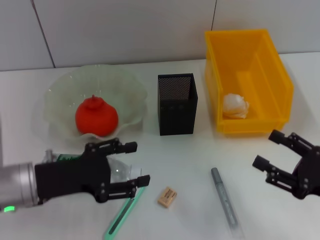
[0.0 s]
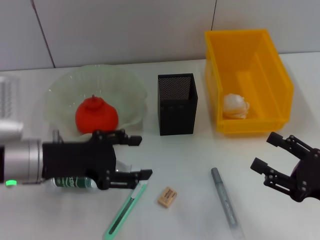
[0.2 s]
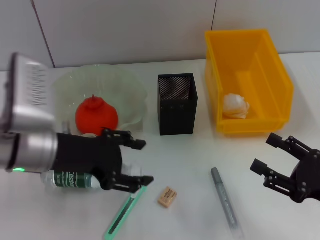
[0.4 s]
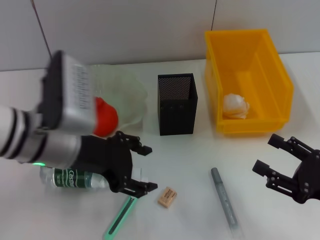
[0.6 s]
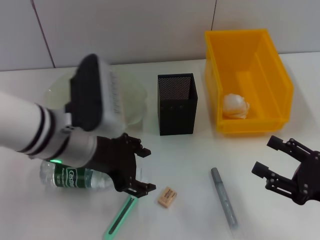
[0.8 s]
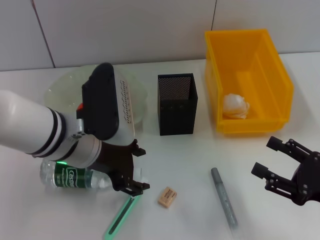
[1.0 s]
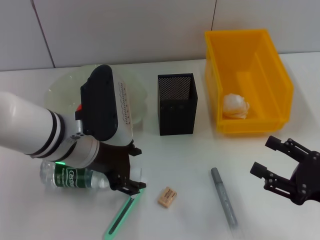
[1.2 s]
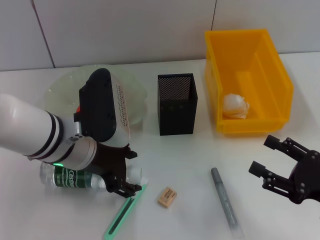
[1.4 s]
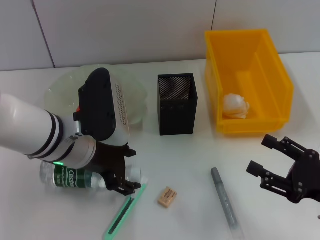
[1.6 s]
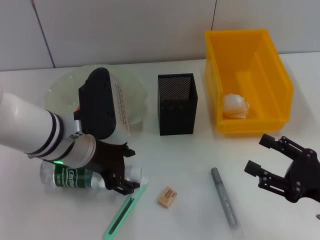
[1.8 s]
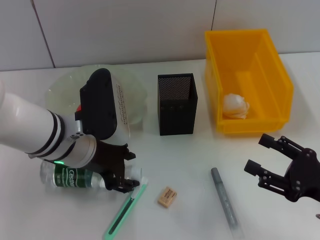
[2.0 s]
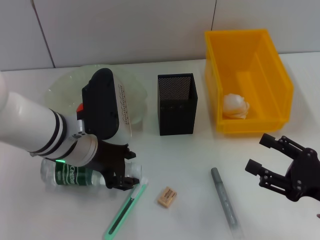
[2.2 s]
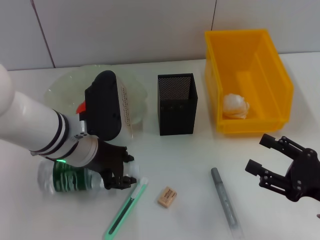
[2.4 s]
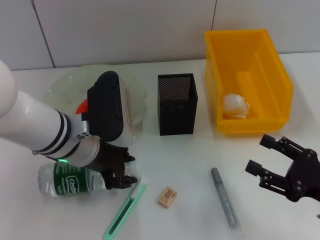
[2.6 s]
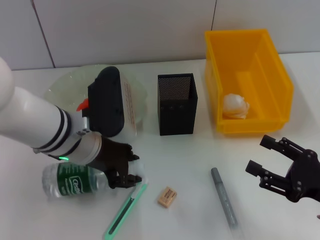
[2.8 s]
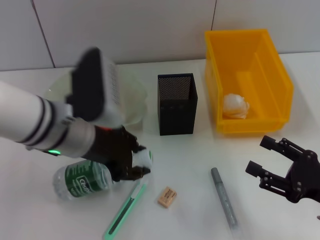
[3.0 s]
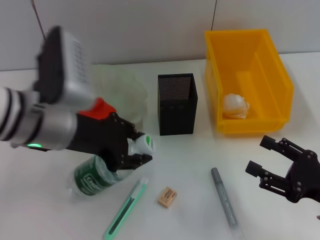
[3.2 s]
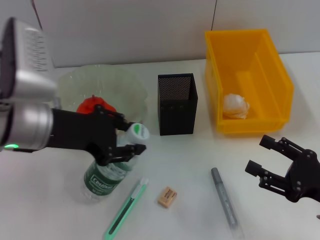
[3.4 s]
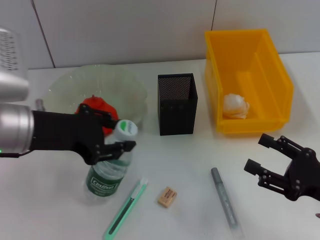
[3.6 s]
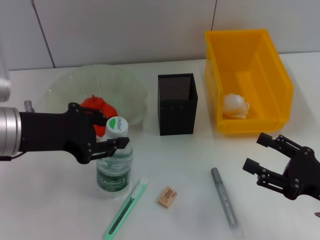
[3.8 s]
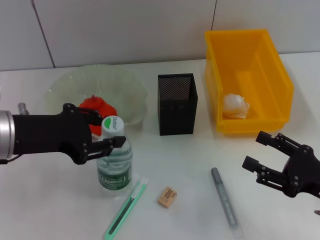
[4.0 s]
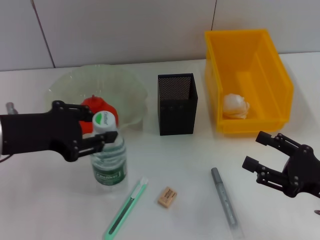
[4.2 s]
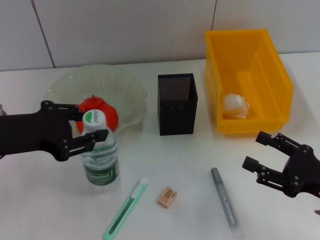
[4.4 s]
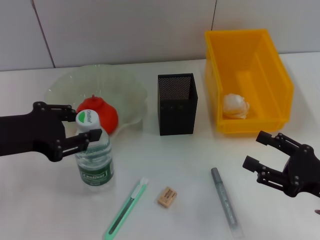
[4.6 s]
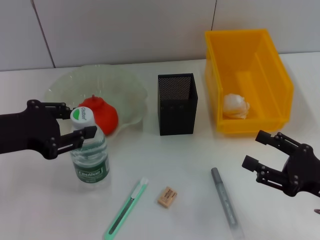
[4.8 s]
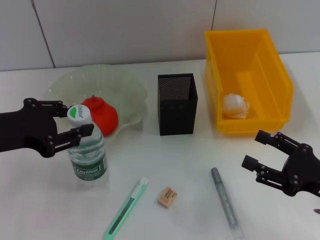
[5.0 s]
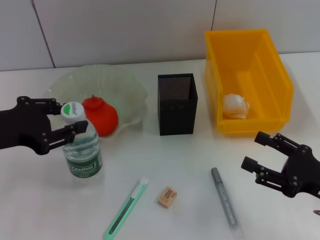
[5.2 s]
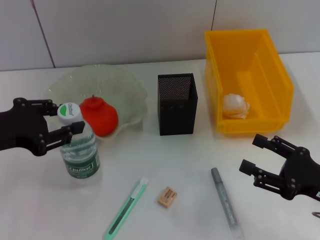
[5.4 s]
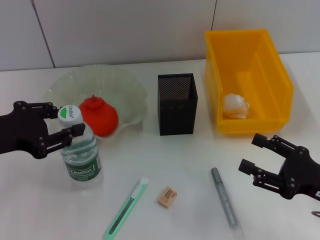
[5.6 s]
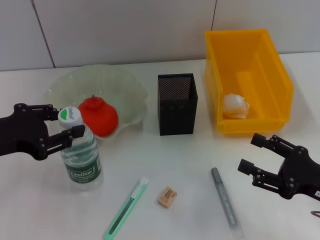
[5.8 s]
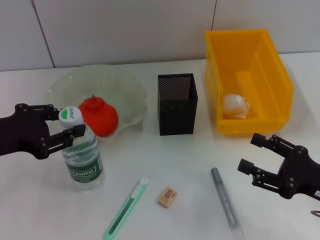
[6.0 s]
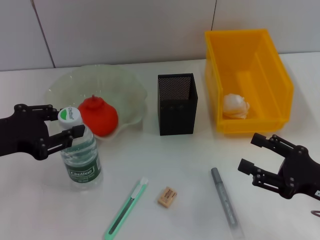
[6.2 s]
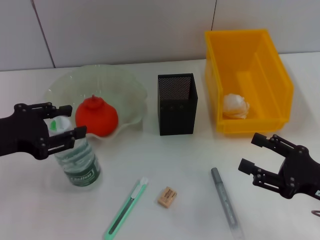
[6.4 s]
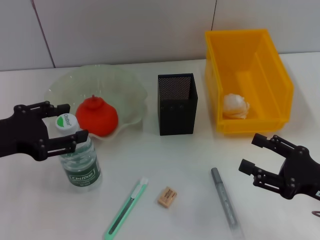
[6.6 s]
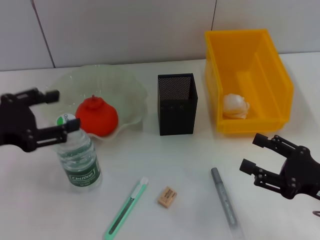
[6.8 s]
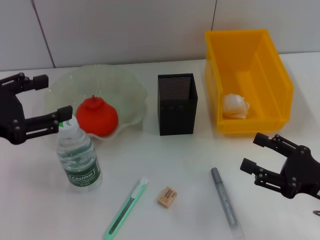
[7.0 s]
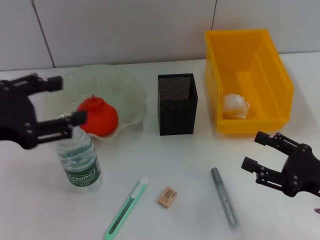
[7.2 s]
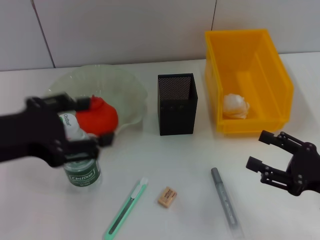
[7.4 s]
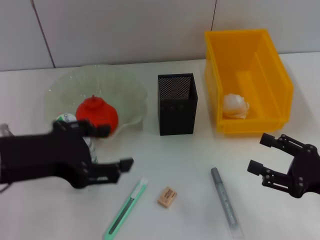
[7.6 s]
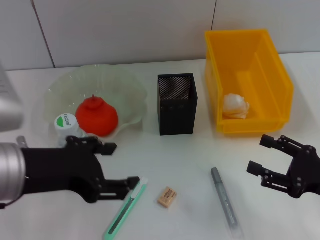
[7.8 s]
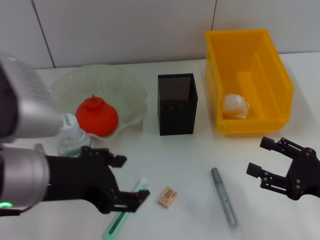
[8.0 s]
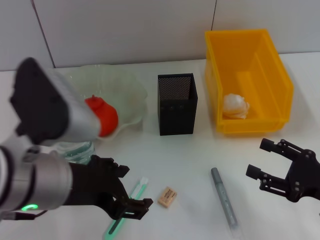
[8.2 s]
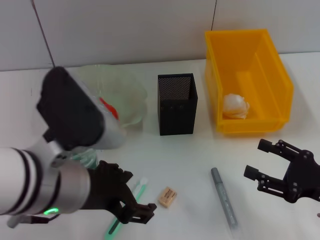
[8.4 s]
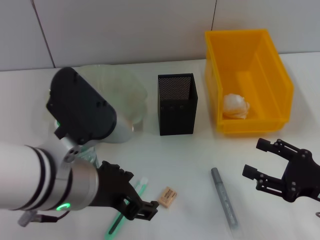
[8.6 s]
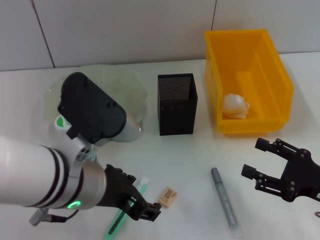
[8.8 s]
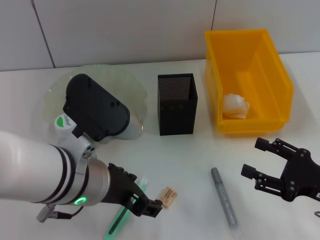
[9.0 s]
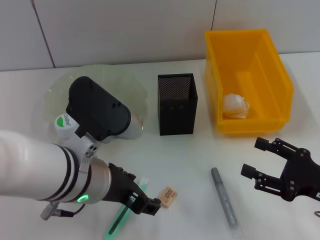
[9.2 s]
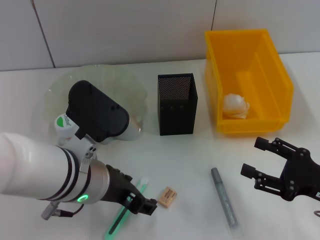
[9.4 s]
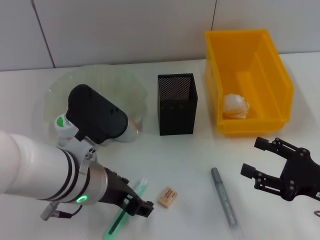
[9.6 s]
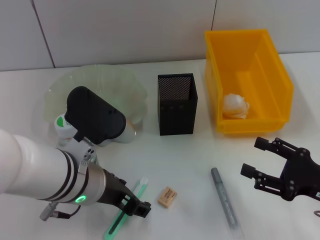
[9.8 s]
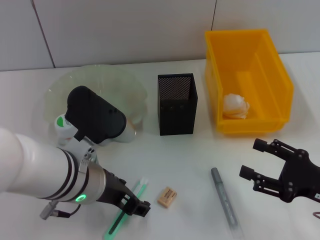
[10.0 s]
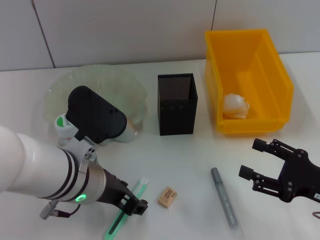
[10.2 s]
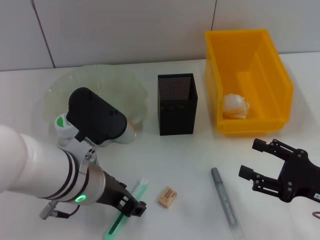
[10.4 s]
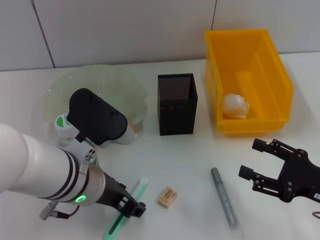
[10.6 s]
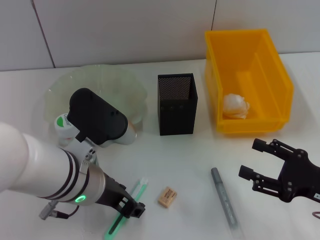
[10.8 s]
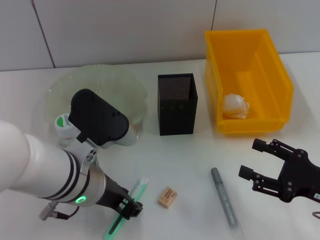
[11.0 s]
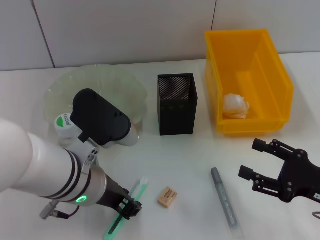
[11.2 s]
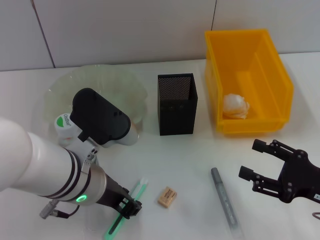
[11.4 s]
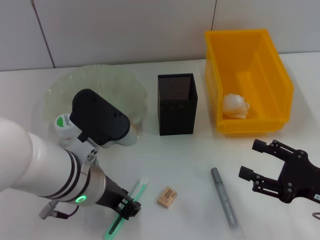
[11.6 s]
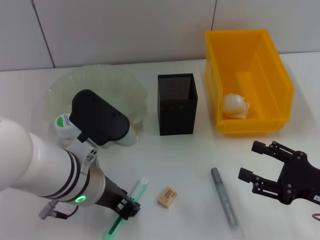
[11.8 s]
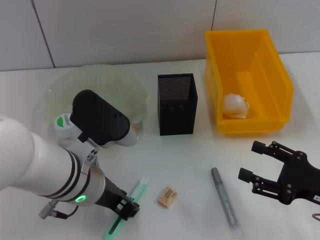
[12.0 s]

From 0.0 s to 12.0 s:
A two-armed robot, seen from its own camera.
Step, from 0.0 s to 2.2 s: Grab the water bottle with the left hand.
Step, from 2.6 s to 6.2 s: Place the water bottle on the table with the left hand.
From 0.0 s to 1.6 s: The left gripper heads to the right, covering roughly 10 cm.
From 1.6 s to 3.0 s: The left gripper closes up.
From 3.0 s to 4.4 s: The left gripper moves to the left, about 10 cm.
From 4.4 s to 6.0 s: There are only small adjustments of the grippers.
From 6.0 s to 7.6 s: The left gripper shifts some 10 cm to the right and backward, and opens up.
From 7.6 s to 9.0 s: The left gripper travels to the right by roughly 10 cm.
From 9.0 s to 10.4 s: The grippers move only a little.
From 10.4 s to 12.0 s: The left gripper closes its fingers.

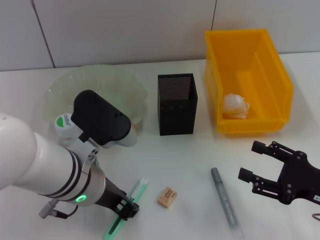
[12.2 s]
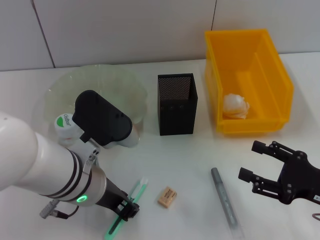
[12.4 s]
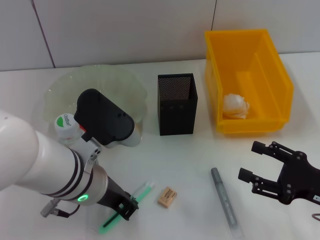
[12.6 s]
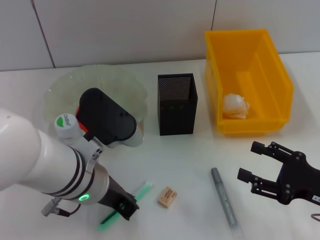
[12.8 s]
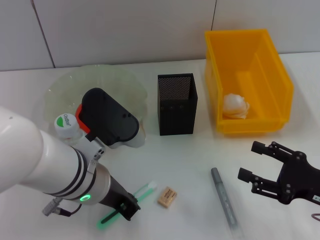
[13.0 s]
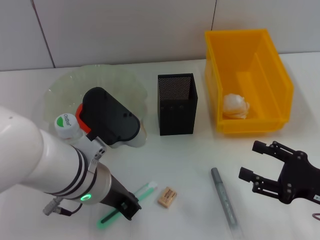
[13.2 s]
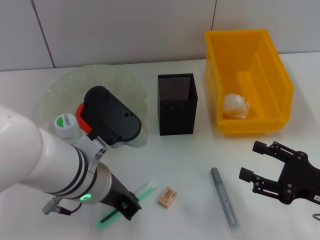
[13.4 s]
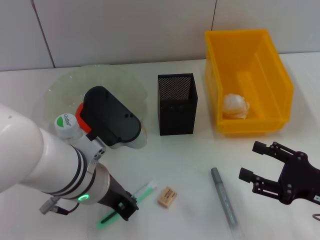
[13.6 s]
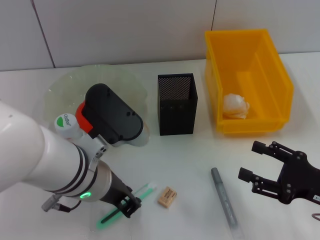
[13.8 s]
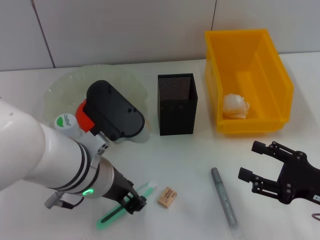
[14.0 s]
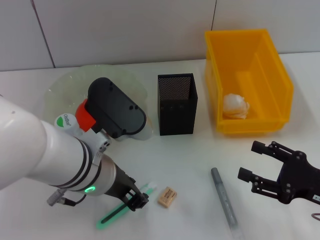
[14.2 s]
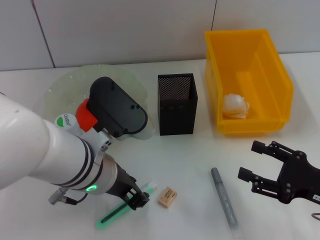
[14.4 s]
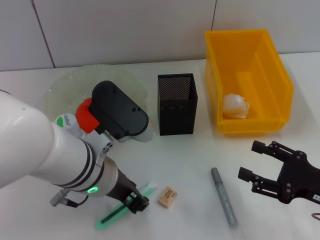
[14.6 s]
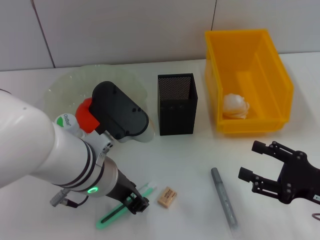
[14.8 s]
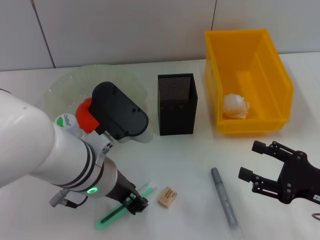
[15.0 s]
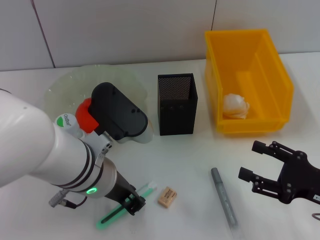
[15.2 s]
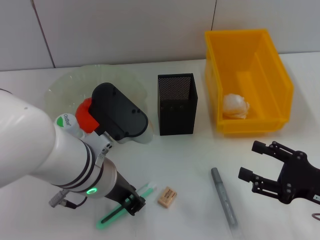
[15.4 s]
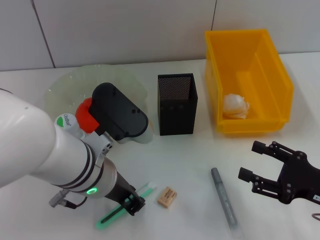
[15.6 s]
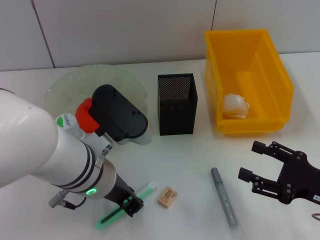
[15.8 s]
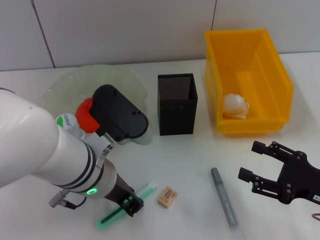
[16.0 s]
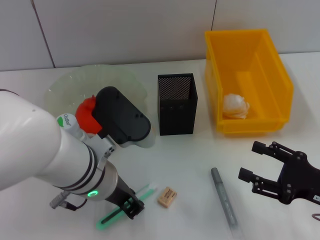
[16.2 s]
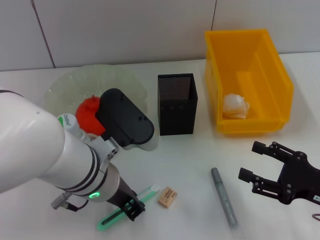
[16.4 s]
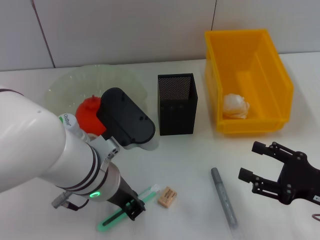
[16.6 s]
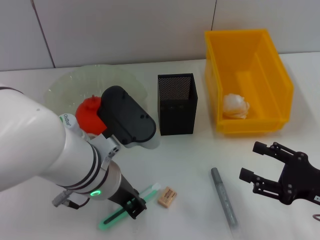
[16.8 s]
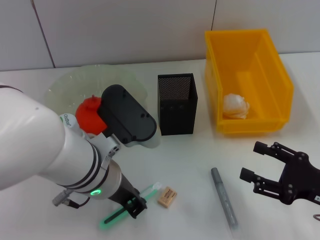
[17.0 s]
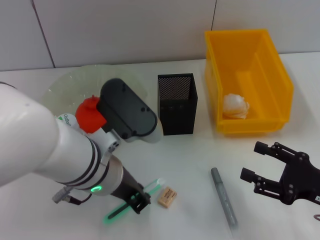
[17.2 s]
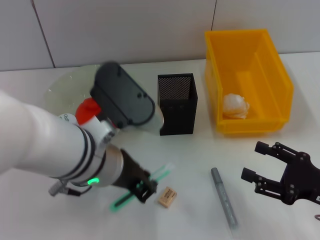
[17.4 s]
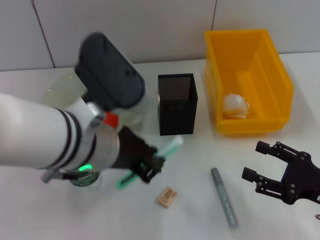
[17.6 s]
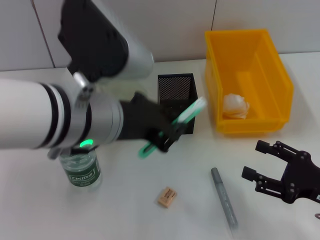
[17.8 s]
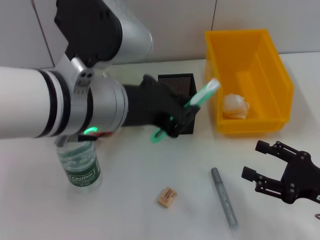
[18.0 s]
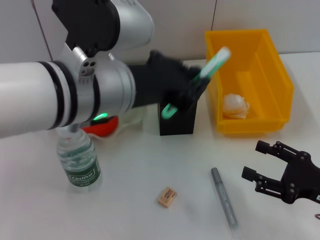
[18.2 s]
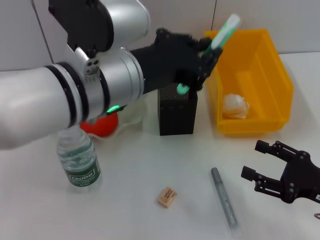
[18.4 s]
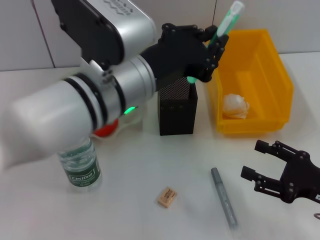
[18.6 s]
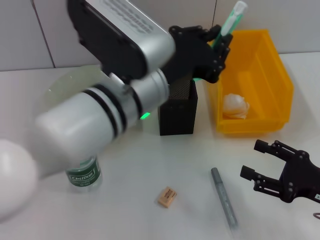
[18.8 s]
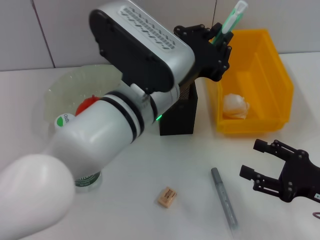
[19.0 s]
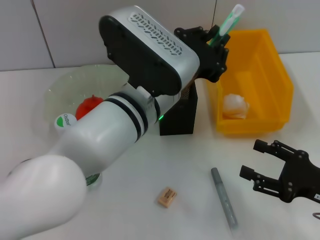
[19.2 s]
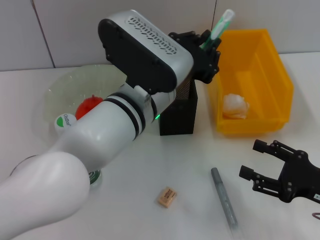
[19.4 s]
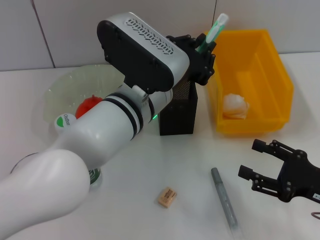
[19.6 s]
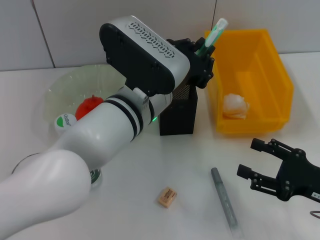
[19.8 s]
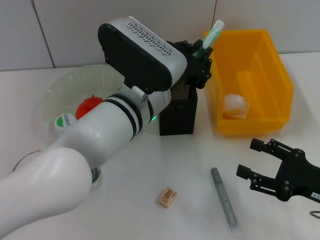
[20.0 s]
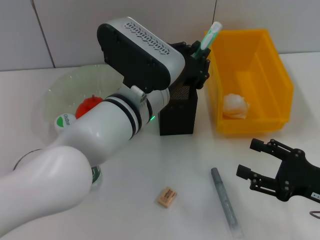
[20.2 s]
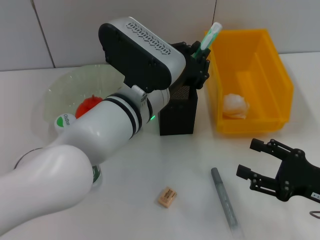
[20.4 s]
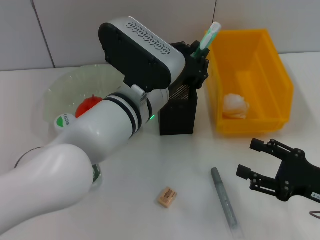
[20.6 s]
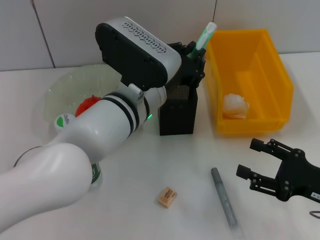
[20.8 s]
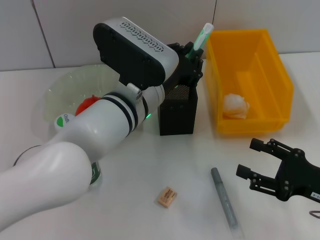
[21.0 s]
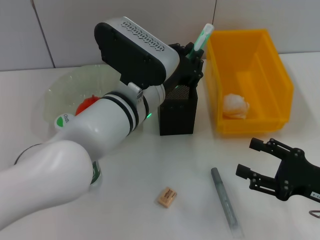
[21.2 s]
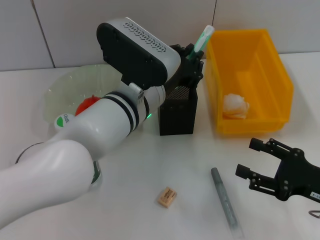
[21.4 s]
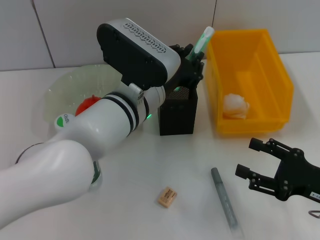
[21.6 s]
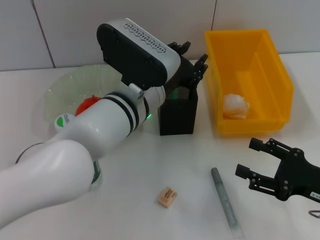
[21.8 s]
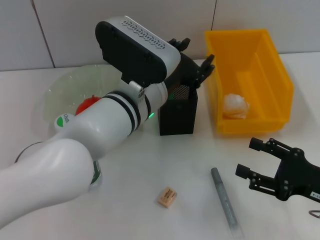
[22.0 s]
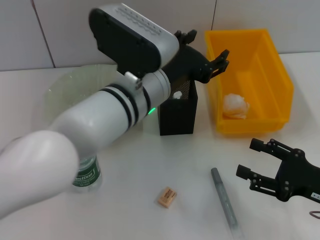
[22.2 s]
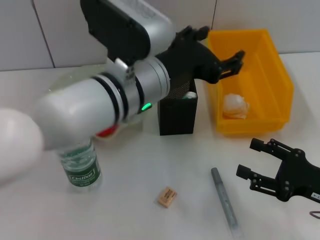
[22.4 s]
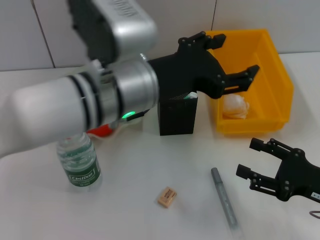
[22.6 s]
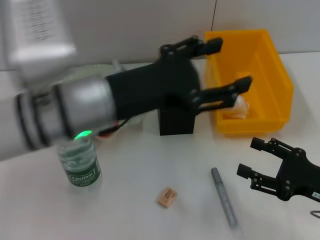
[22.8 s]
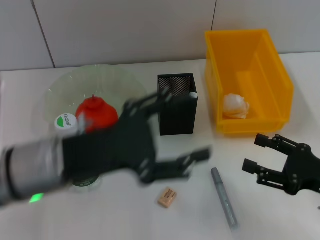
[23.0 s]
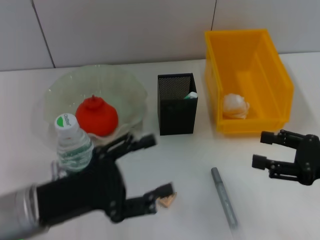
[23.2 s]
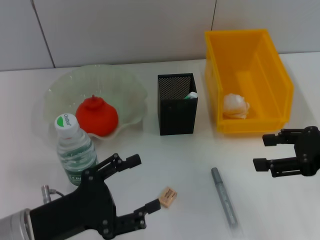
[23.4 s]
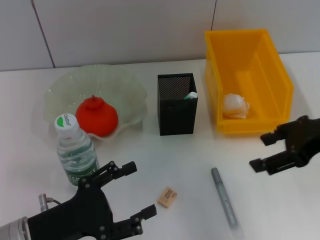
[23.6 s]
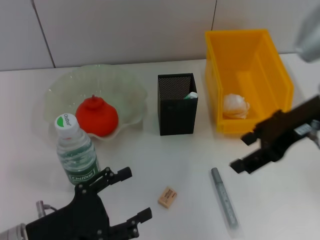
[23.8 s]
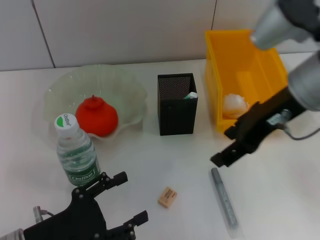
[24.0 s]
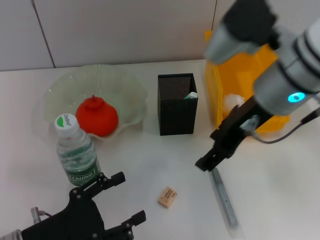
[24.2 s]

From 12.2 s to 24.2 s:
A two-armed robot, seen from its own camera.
Step, from 12.2 s to 15.6 s: Grab the blue utility knife with the left hand.
Step, from 15.8 s to 21.6 s: Place the blue utility knife into the pen holder with the left hand.
From 12.2 s to 13.8 s: There are only small adjustments of the grippers.
From 13.8 s to 15.2 s: The two grippers keep their place.
From 15.2 s to 16.6 s: Both grippers stay about where they are.
From 16.6 s to 18.2 s: The left gripper is displaced upward by about 10 cm.
From 18.2 s to 19.8 s: The left gripper goes about 10 cm downward.
From 19.8 s to 21.2 s: The grippers make only small movements.
From 21.2 s to 22.6 s: The left gripper travels upward by approximately 5 cm, and opens its fingers.
From 22.6 s to 24.2 s: The left gripper heads downward, to the left and backward, covering about 25 cm. Meanwhile the right gripper moves upward, to the left and forward, about 25 cm.
